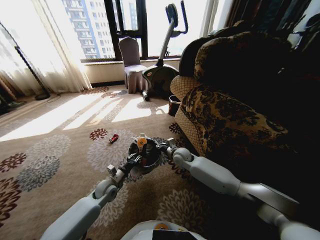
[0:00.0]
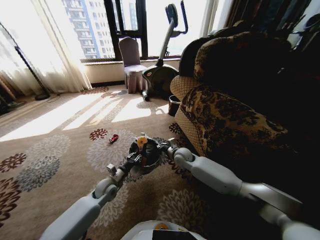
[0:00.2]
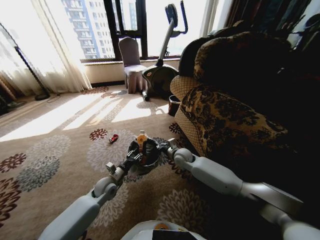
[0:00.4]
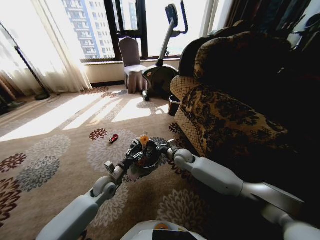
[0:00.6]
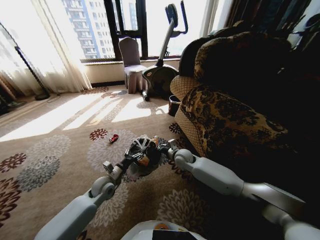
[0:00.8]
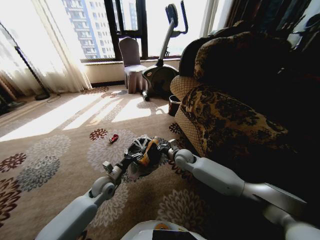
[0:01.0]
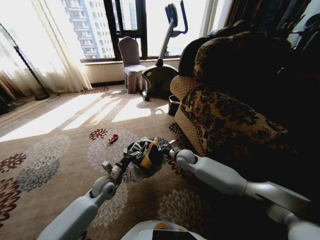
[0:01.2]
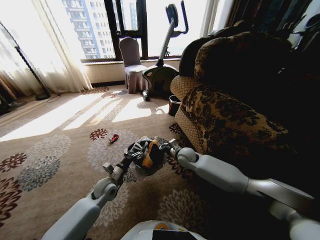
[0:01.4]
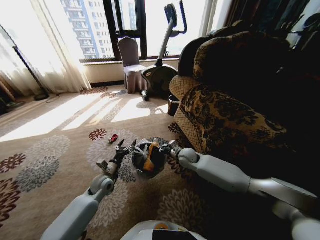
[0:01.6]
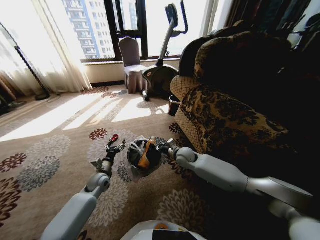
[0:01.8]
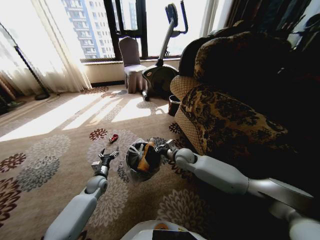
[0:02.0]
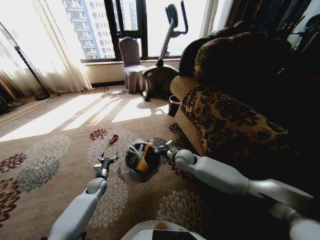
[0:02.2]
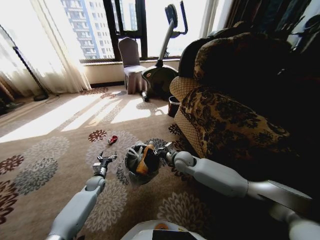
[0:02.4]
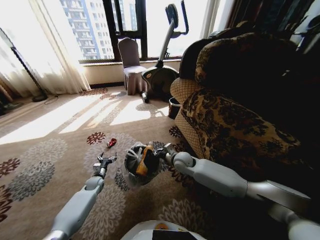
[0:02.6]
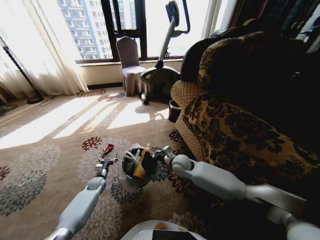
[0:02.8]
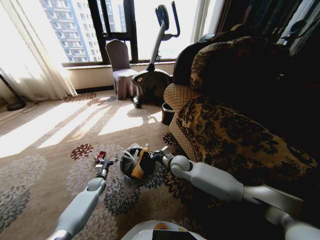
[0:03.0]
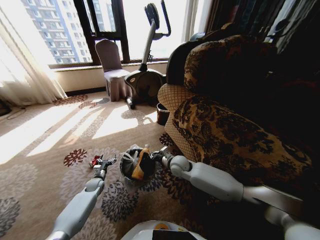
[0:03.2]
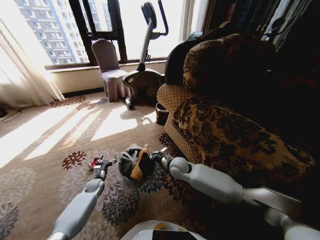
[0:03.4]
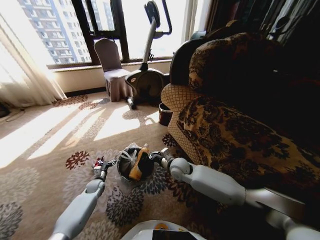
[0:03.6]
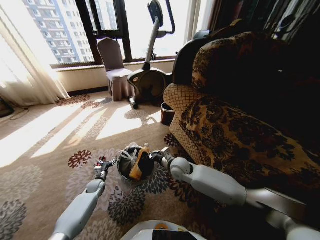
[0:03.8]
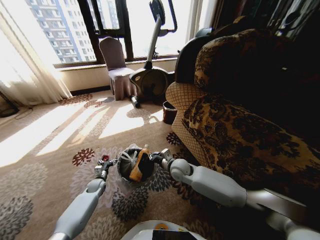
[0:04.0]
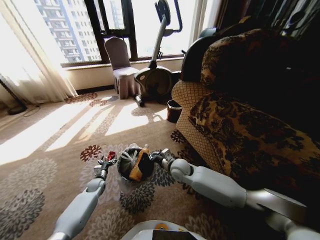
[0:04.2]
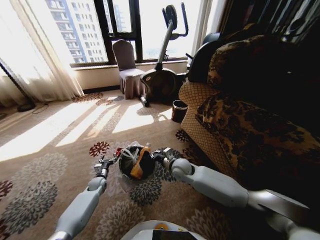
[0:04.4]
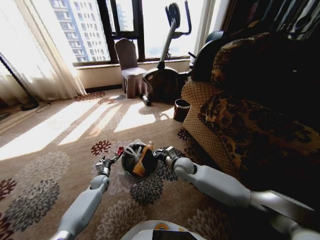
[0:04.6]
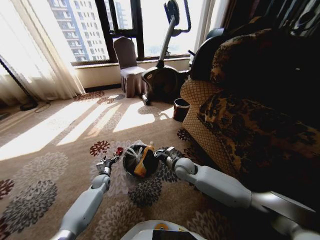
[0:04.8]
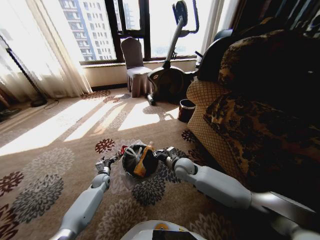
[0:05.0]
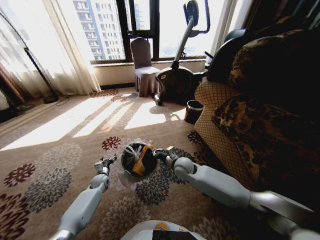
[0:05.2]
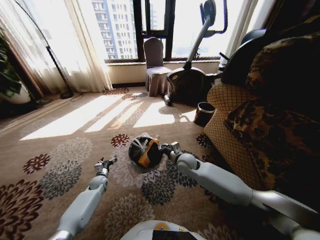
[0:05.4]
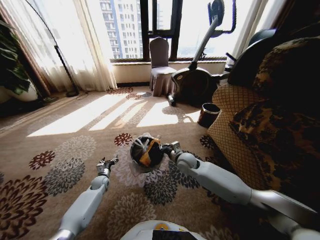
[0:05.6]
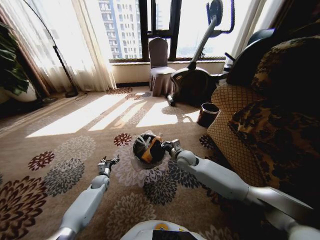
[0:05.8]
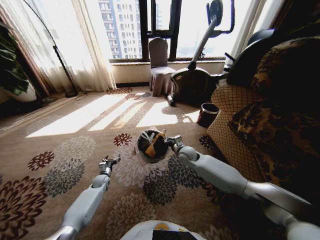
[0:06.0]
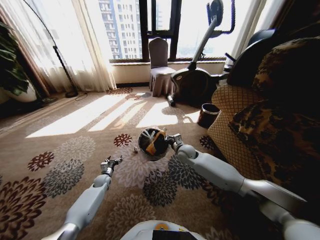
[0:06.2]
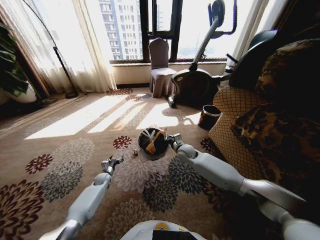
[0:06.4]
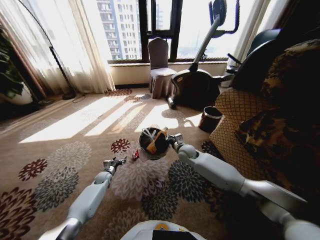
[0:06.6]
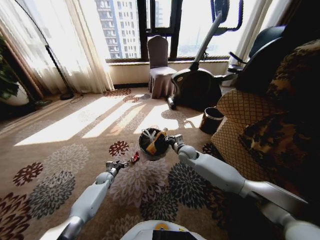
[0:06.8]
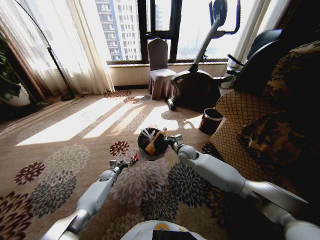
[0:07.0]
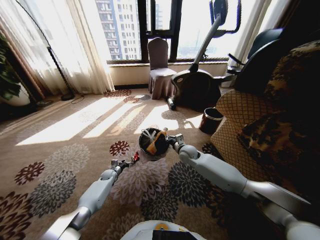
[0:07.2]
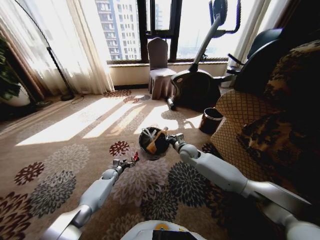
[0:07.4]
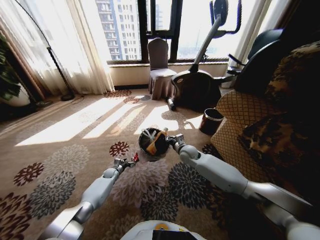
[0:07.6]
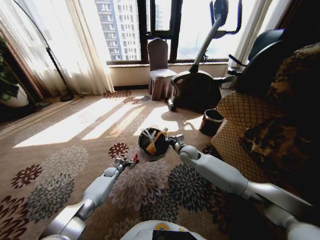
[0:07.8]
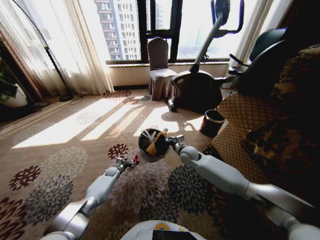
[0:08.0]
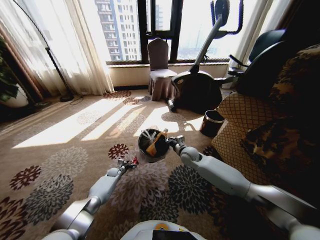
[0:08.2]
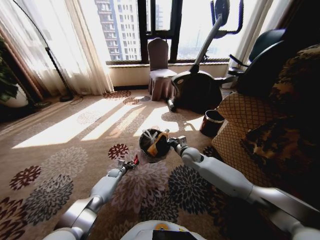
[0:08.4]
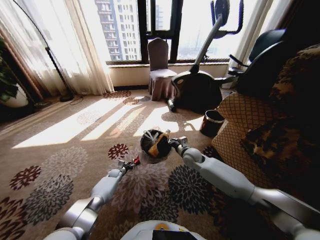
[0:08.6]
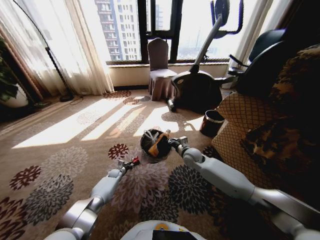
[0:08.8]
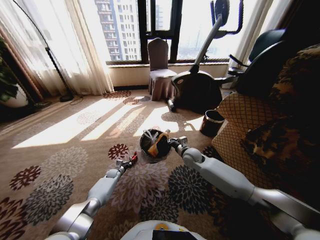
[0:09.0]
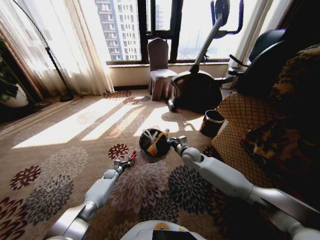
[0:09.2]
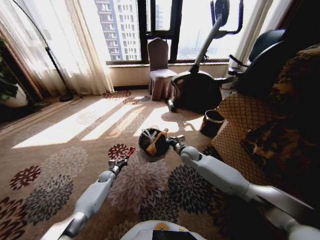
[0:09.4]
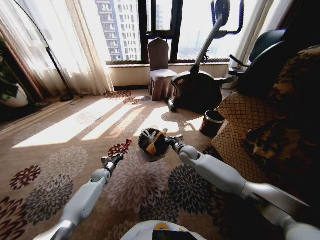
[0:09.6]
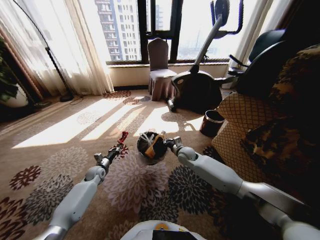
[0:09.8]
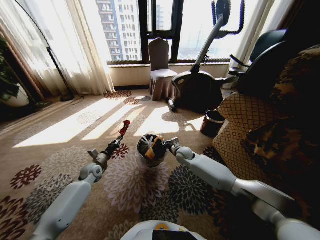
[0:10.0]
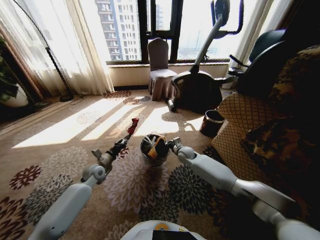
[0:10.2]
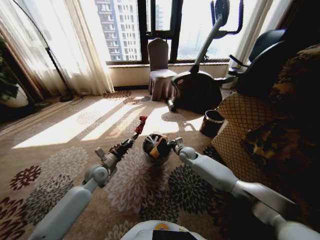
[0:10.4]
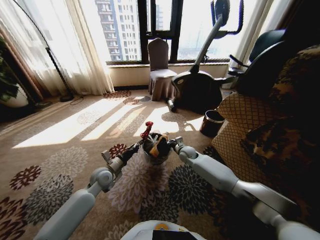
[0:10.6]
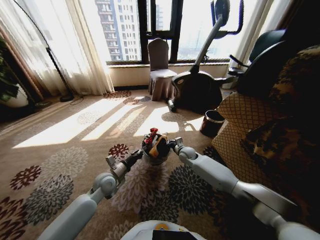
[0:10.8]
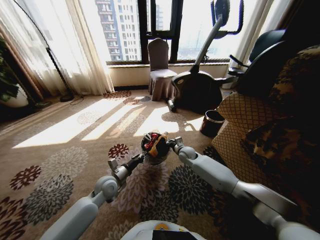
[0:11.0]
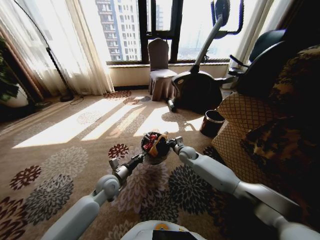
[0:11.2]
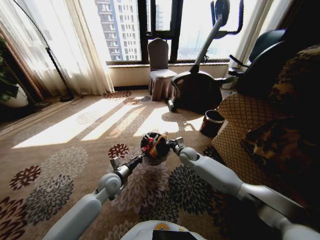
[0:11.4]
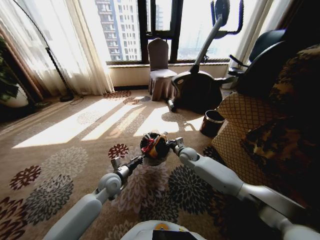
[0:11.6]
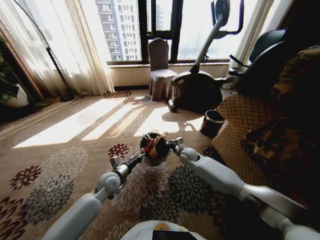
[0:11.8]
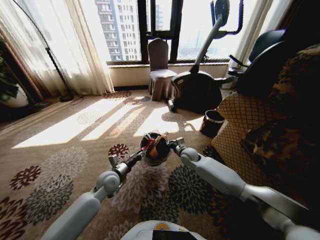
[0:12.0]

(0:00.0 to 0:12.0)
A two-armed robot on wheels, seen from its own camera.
Task of the whole recording: Pick up the trash from the ground and place it into the trash bin.
0:00.0 - 0:01.6: The left gripper opens its fingers.
0:01.6 - 0:03.0: The right gripper ends up roughly 5 cm from where it was. Meanwhile the left gripper heads downward and to the left, covering approximately 20 cm.
0:04.4 - 0:06.0: The right gripper shifts approximately 10 cm forward.
0:06.0 - 0:07.6: The left gripper travels forward by approximately 5 cm.
0:07.6 - 0:09.0: The left gripper closes up.
0:09.0 - 0:10.4: The right gripper is displaced downward by approximately 5 cm; the left gripper travels upward and backward by about 30 cm.
0:10.4 - 0:12.0: The left gripper is displaced to the right by approximately 5 cm, and opens up.

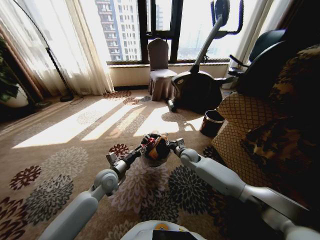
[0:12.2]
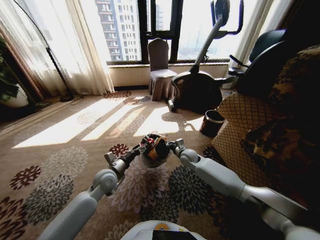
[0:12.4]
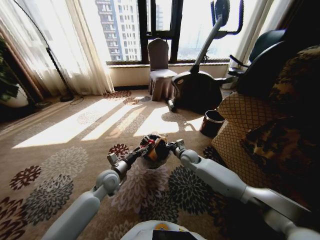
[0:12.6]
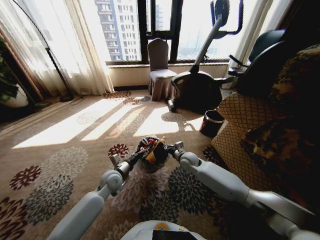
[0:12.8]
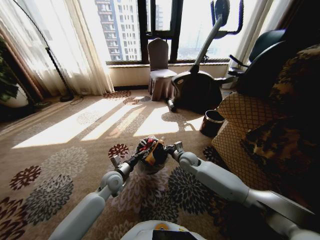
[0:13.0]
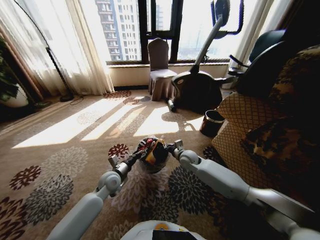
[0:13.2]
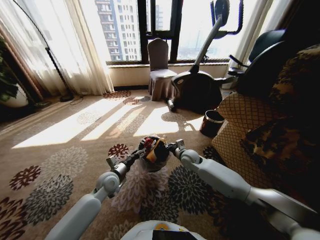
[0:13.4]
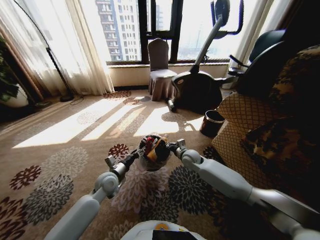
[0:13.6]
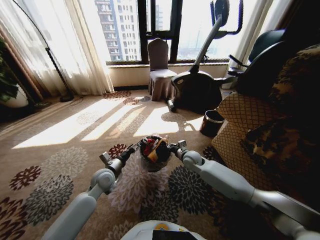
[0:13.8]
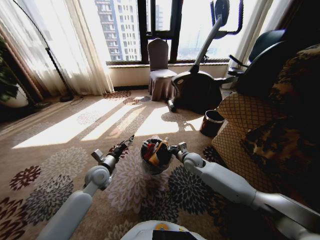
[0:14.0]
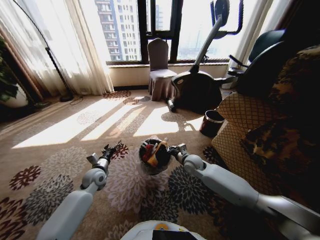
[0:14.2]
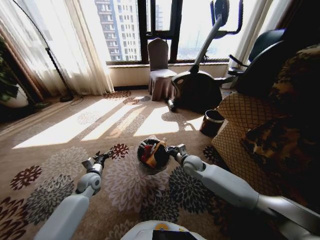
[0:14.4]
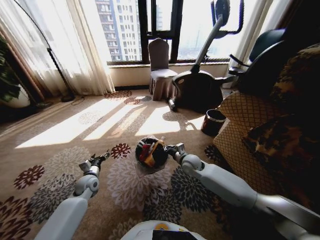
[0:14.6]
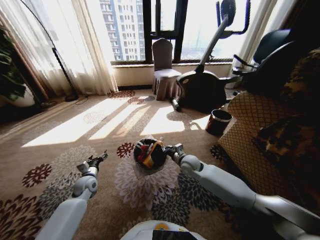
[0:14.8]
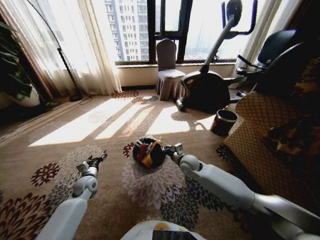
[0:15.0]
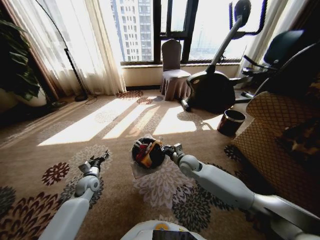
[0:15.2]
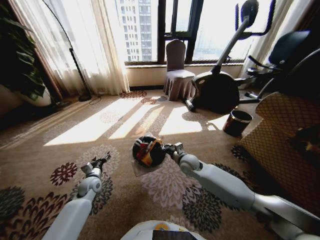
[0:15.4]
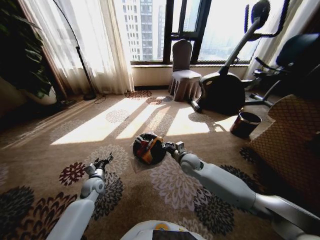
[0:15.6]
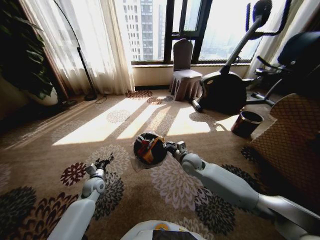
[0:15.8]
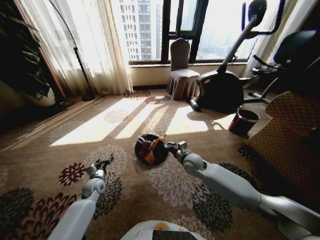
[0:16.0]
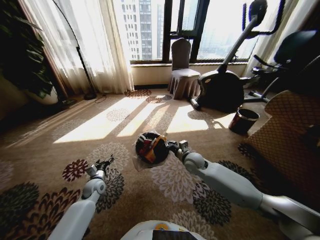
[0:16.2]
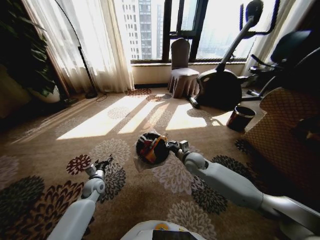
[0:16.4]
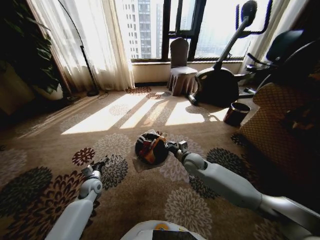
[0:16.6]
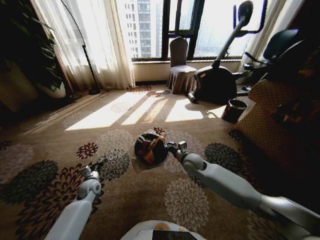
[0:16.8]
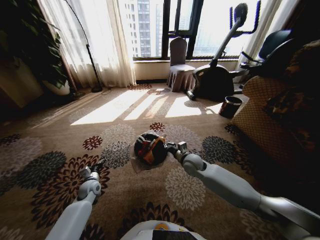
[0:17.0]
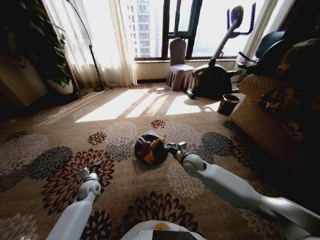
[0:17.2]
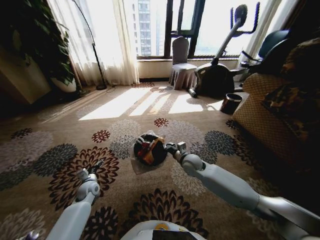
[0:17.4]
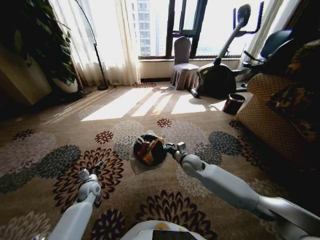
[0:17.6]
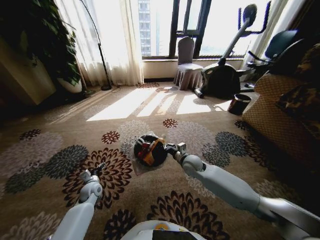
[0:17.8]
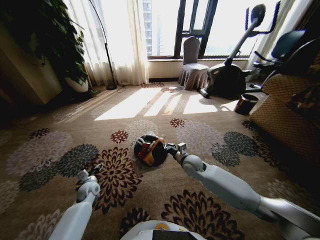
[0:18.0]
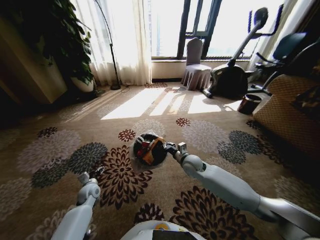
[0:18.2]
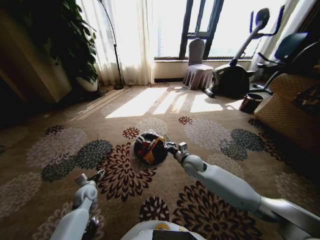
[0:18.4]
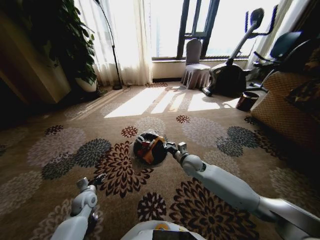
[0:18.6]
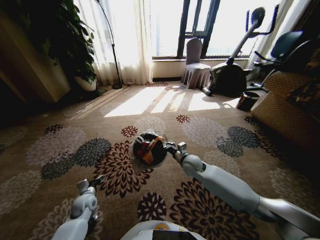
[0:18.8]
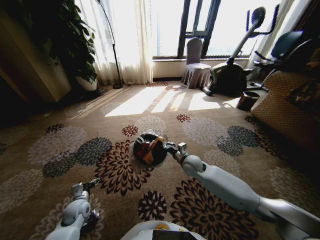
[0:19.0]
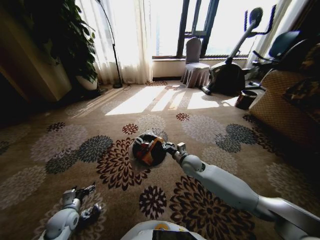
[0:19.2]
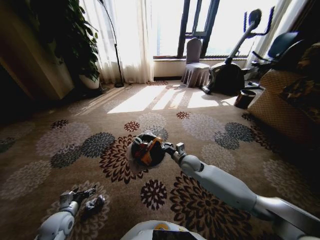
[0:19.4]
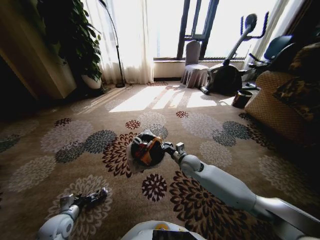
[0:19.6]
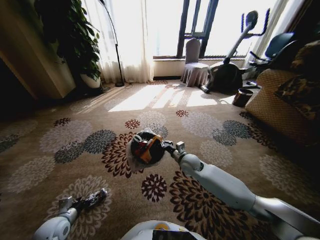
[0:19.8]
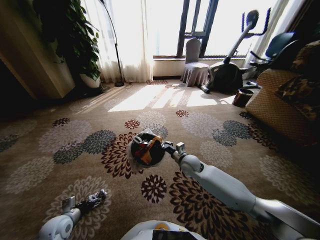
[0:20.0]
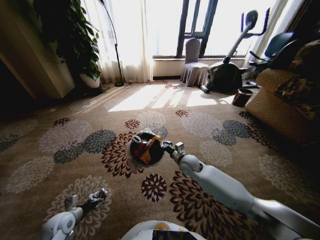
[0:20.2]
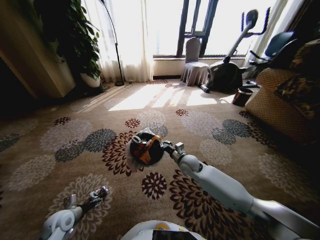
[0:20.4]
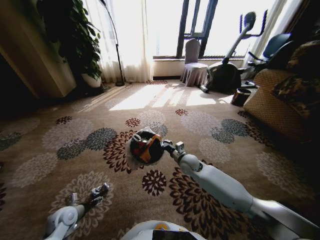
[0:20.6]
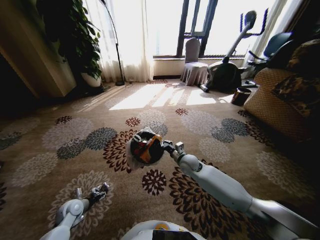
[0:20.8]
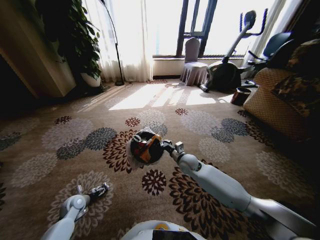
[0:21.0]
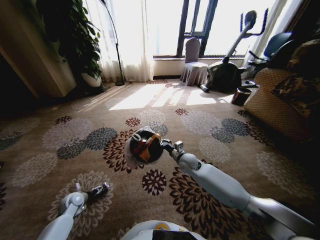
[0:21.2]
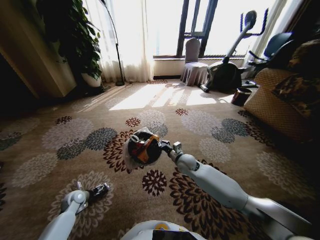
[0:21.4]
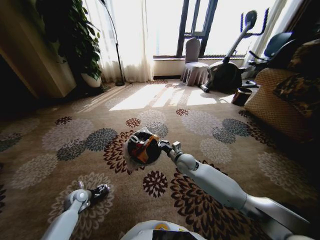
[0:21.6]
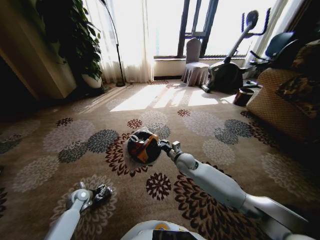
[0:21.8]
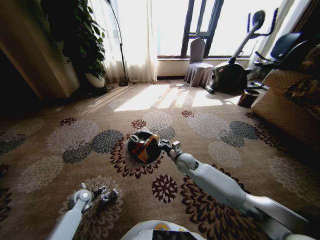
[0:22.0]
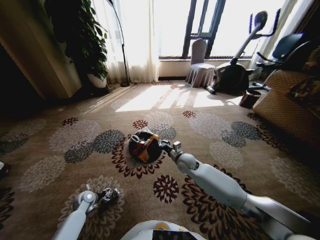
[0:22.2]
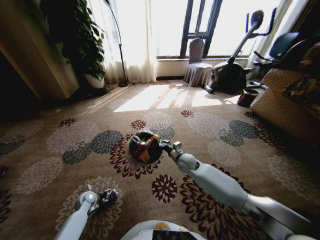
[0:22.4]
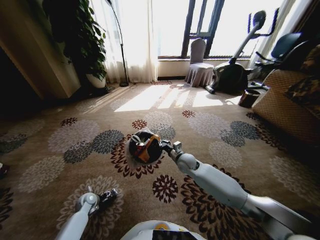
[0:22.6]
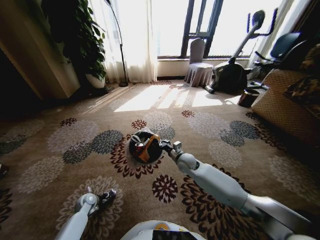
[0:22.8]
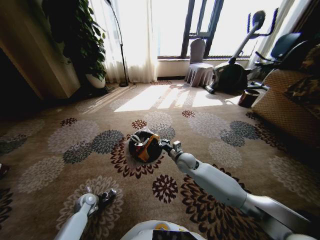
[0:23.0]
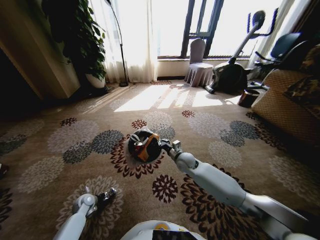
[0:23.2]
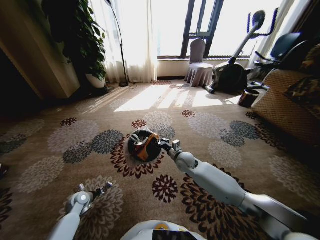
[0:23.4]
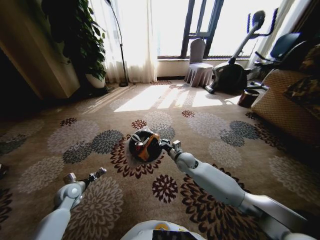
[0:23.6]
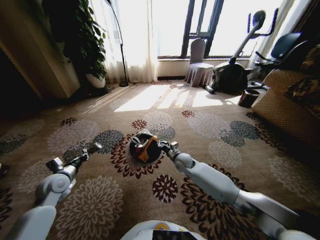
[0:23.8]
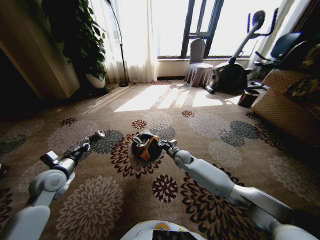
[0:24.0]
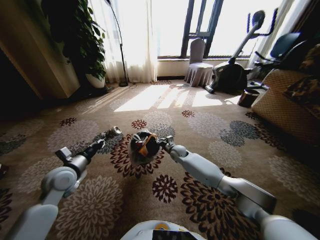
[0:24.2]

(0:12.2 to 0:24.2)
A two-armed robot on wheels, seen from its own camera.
Task of the whole recording: Pick up the trash from the ground and place it into the trash bin.
0:12.2 - 0:13.8: The grippers make only small movements.
0:13.8 - 0:15.2: The left gripper moves to the left and downward, approximately 15 cm.
0:18.2 - 0:19.8: The left gripper heads backward, covering about 15 cm.
0:19.8 - 0:21.2: The left gripper goes about 10 cm forward and downward.
0:21.2 - 0:22.6: The left gripper moves downward, some 5 cm.
0:22.6 - 0:24.2: The right gripper shifts about 10 cm forward. Meanwhile the left gripper moves upward, approximately 25 cm, and closes its fingers.
